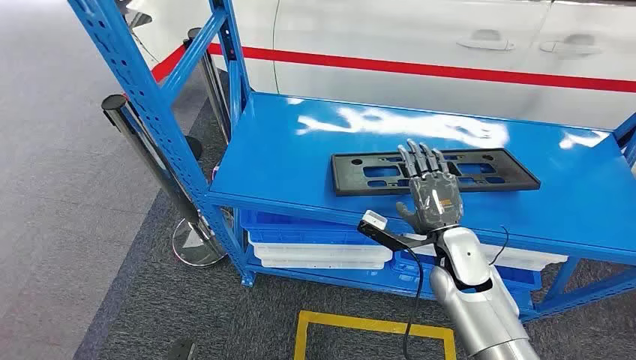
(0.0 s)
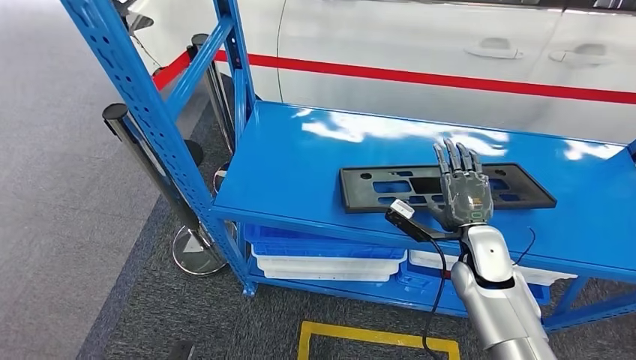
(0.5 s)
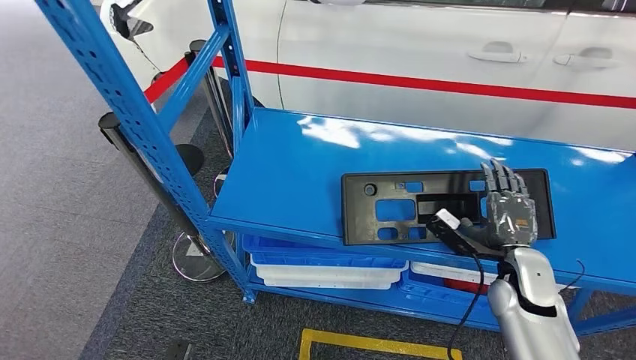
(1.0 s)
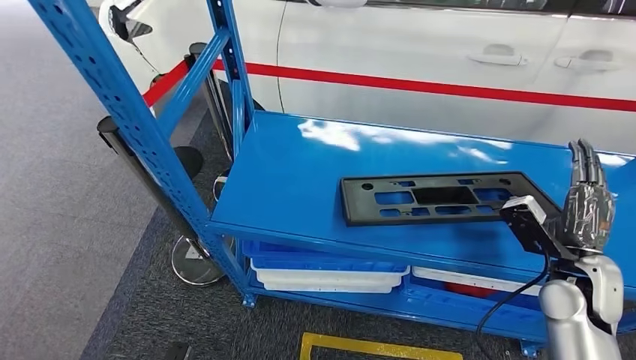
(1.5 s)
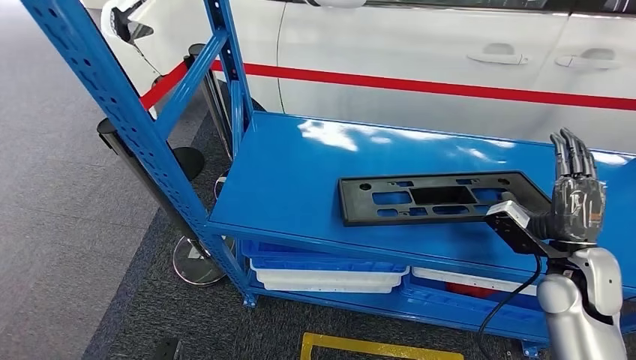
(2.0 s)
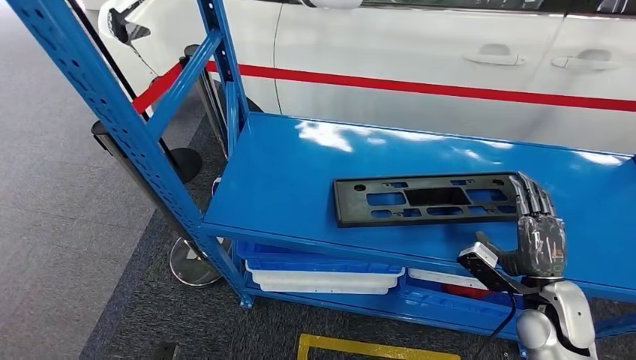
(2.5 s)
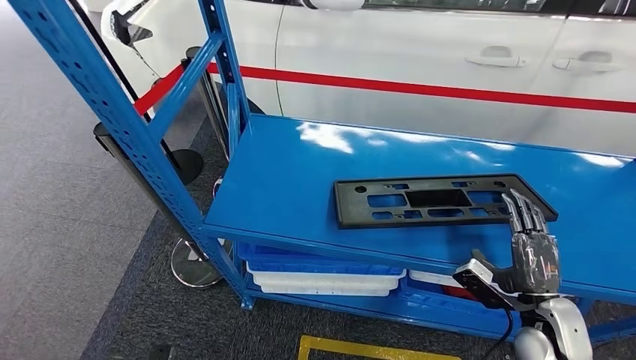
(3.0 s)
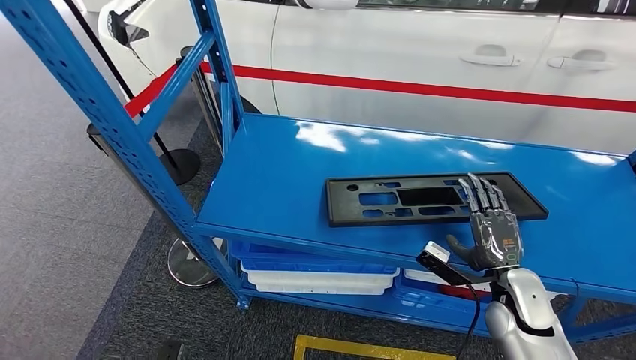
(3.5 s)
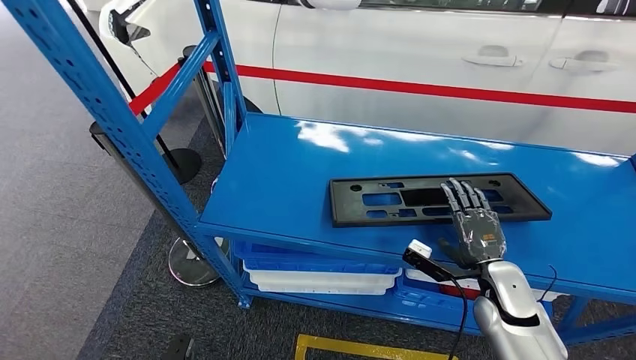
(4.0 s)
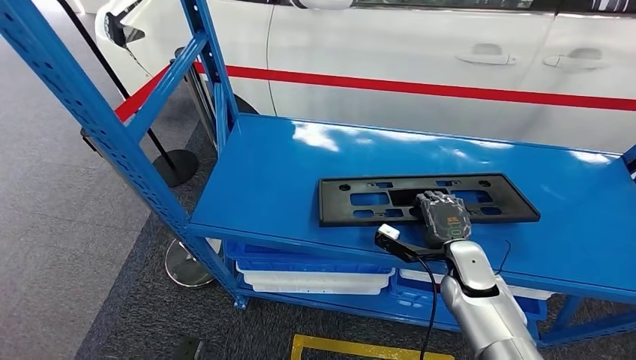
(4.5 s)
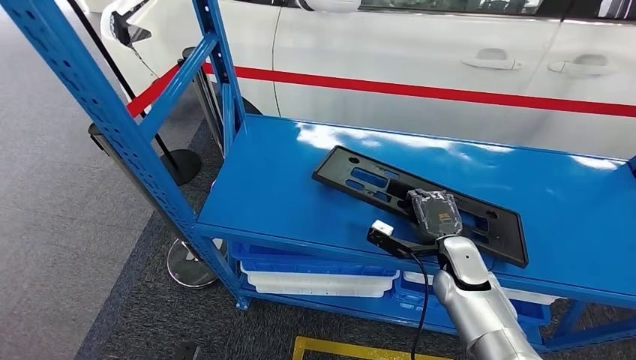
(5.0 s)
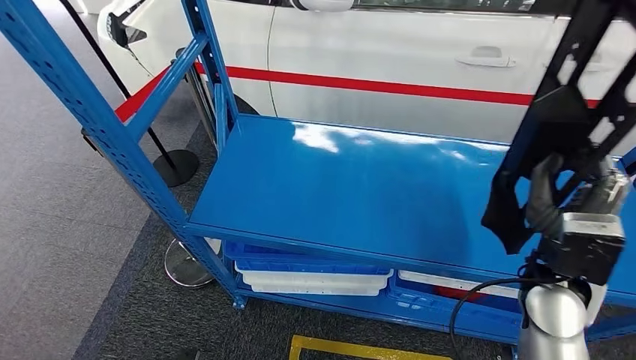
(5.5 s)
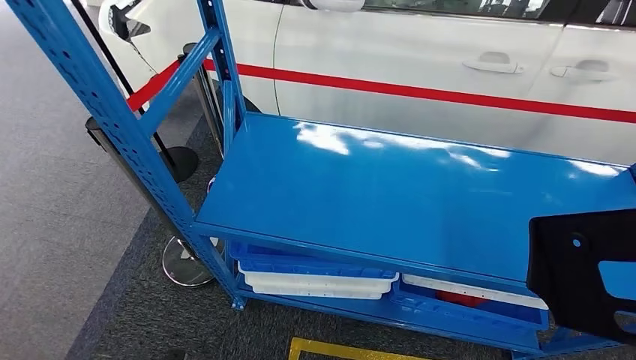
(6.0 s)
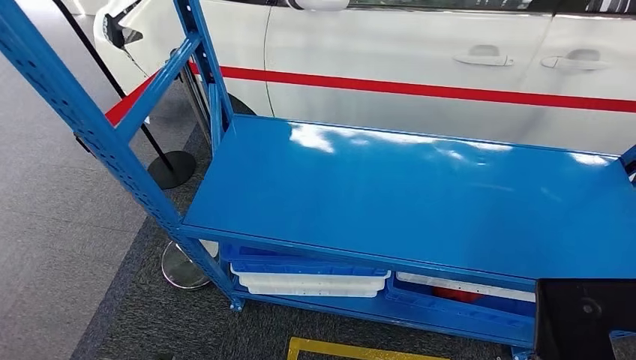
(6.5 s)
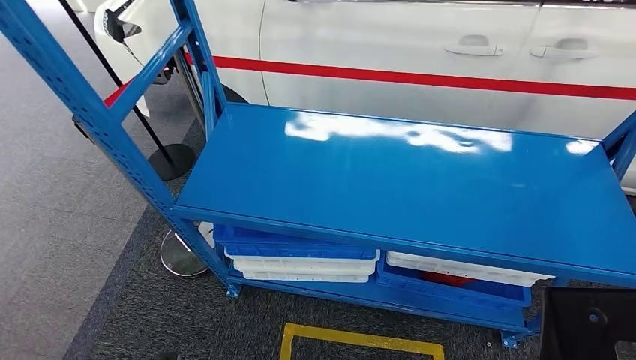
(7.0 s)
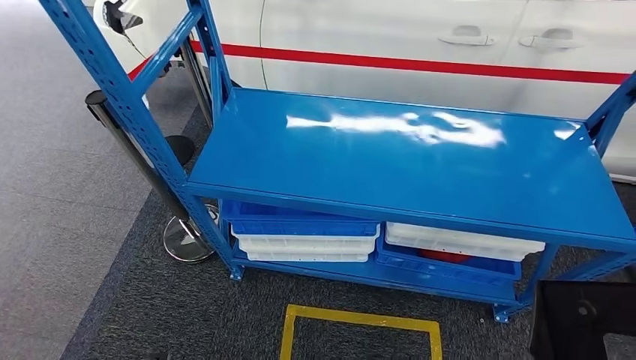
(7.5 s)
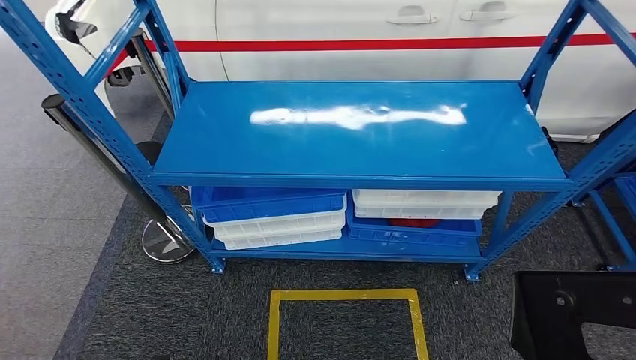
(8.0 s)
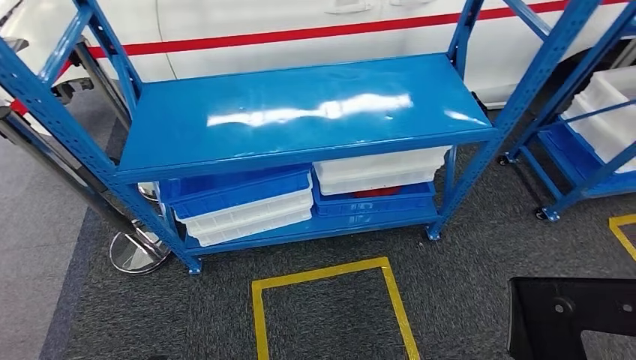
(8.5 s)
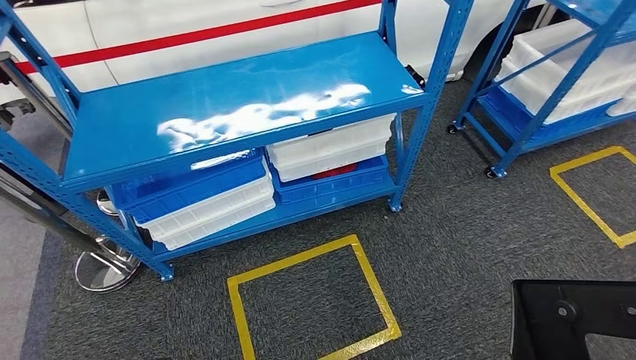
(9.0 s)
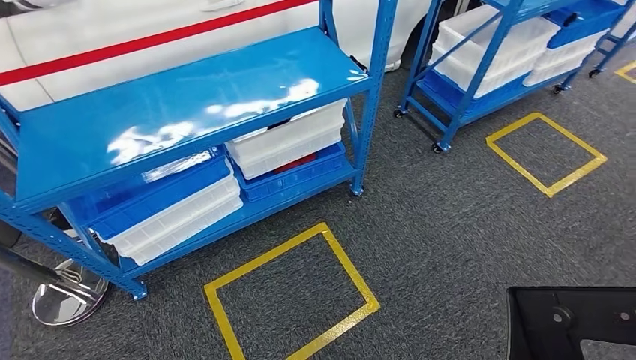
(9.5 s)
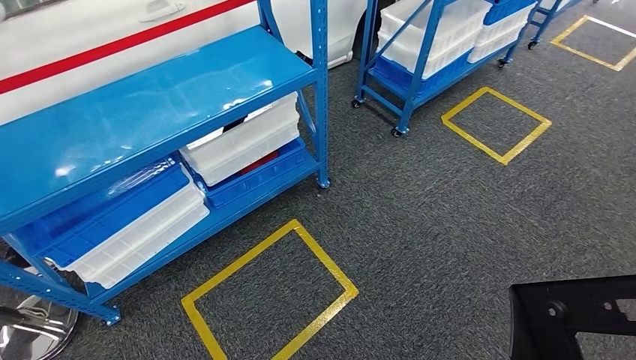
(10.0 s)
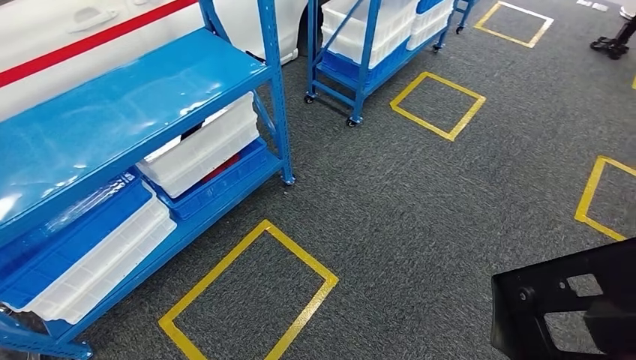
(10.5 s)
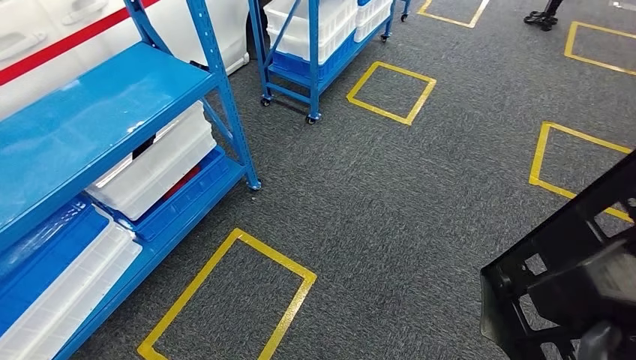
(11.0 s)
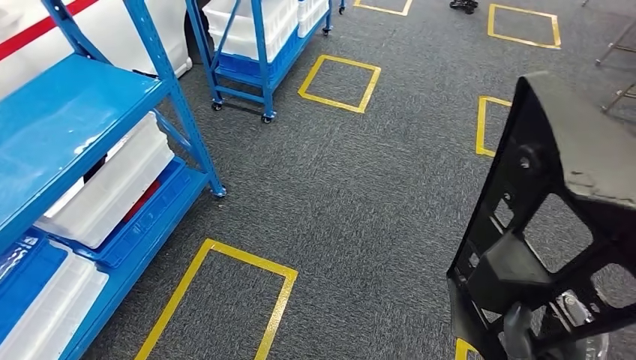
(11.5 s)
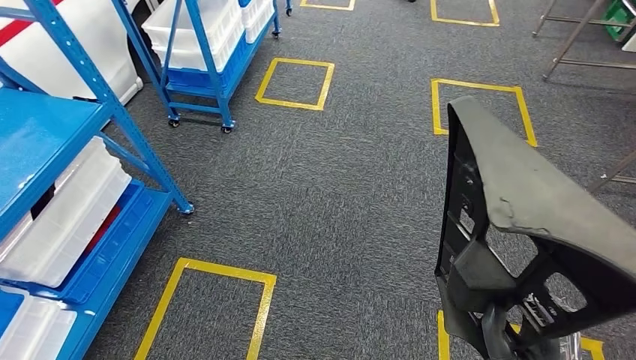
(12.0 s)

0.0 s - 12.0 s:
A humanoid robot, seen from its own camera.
Step, 0.0 s - 8.0 s: Pick up the large material from the shelf.

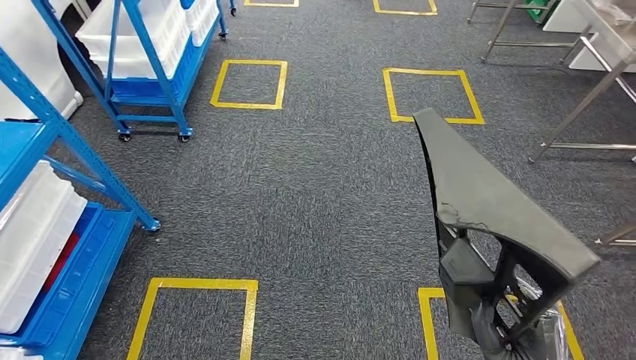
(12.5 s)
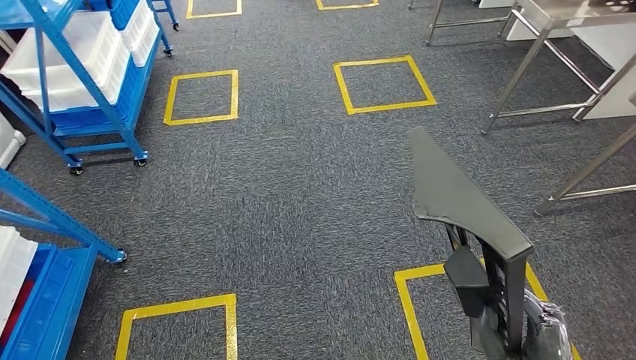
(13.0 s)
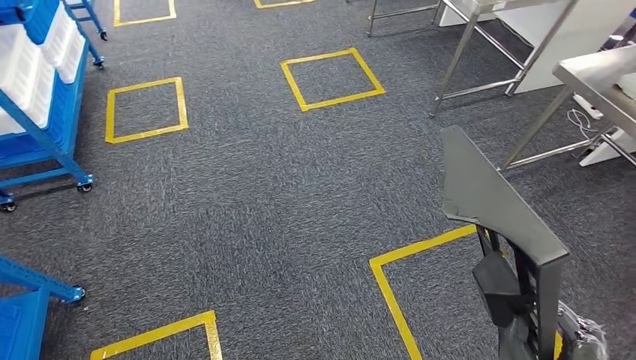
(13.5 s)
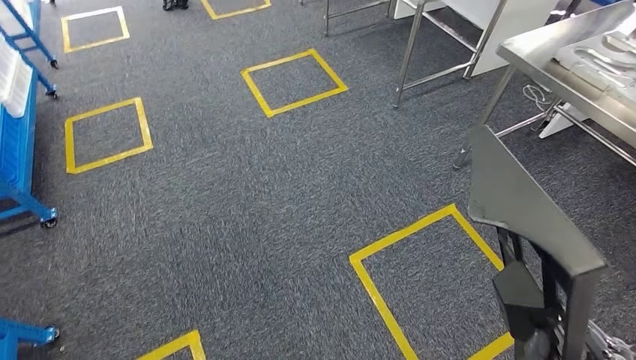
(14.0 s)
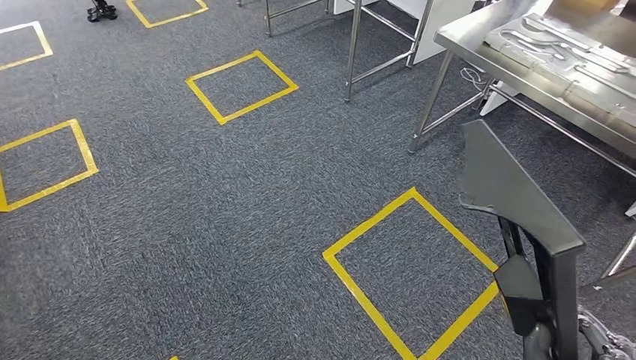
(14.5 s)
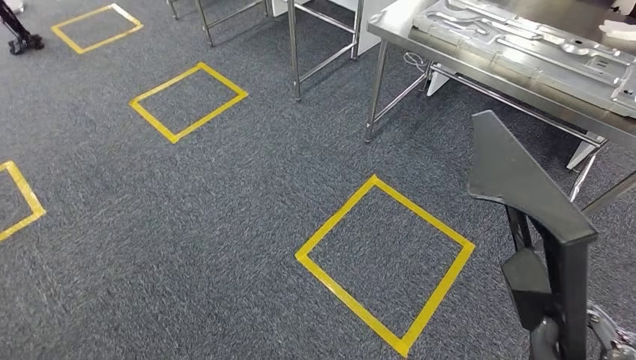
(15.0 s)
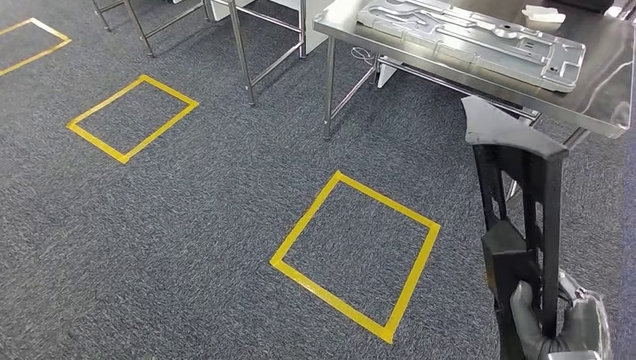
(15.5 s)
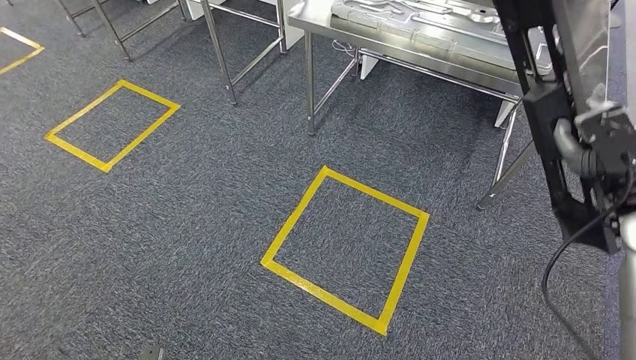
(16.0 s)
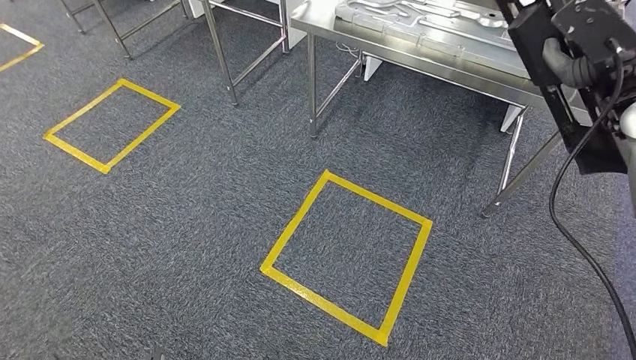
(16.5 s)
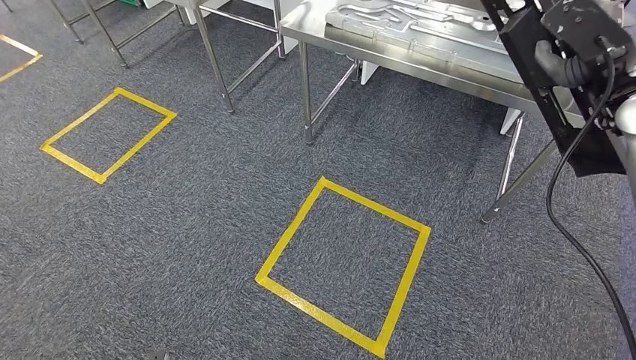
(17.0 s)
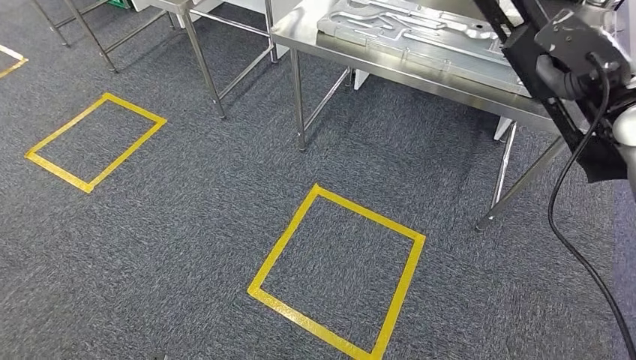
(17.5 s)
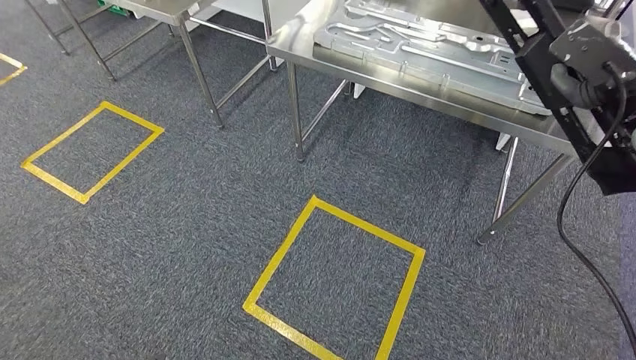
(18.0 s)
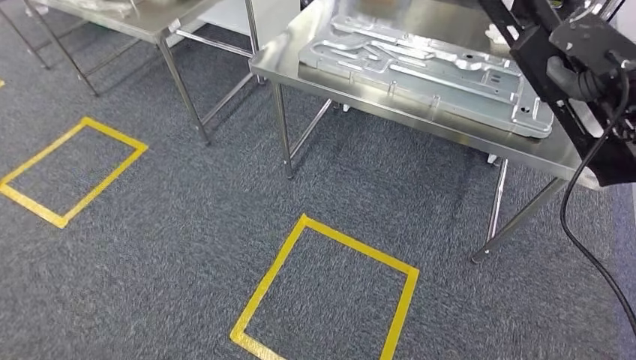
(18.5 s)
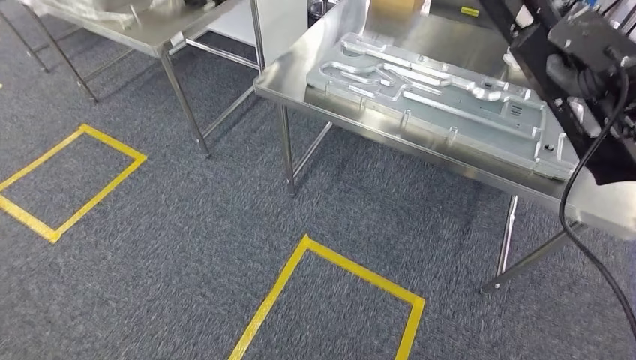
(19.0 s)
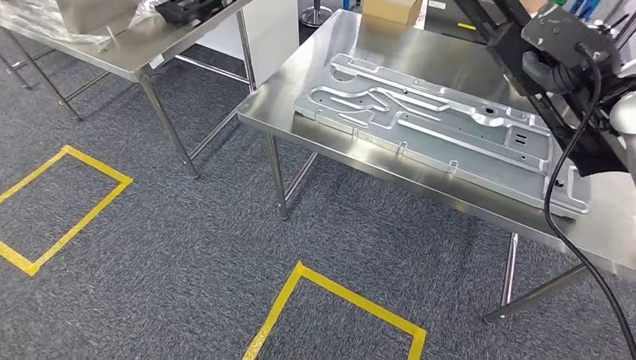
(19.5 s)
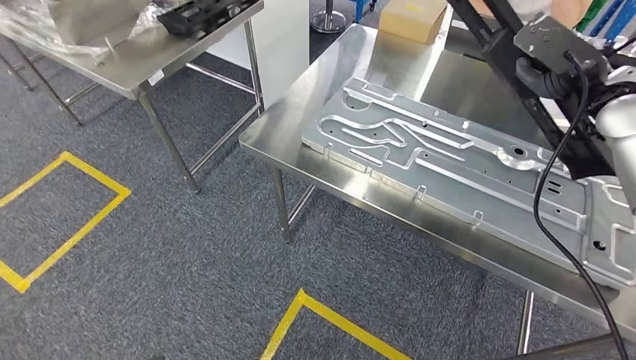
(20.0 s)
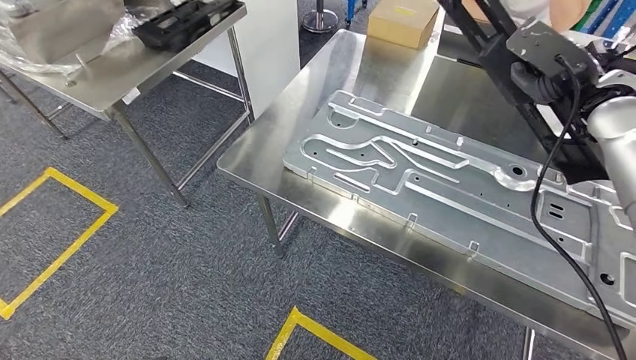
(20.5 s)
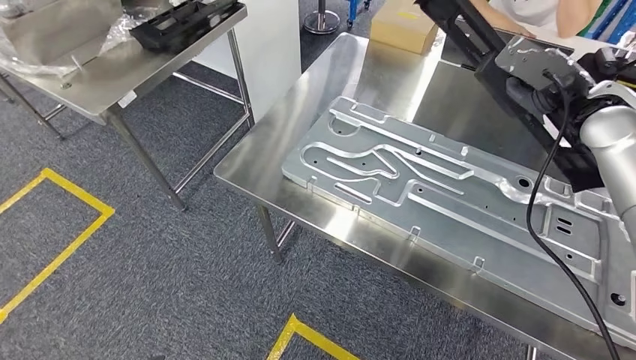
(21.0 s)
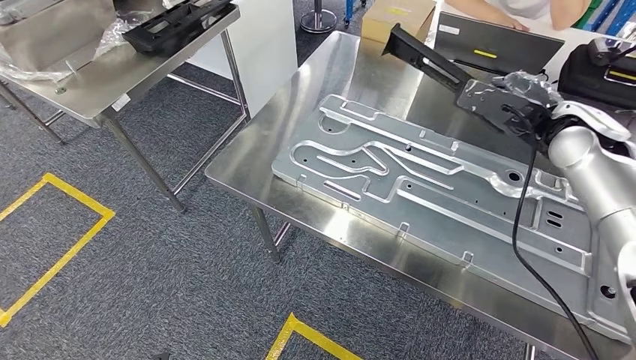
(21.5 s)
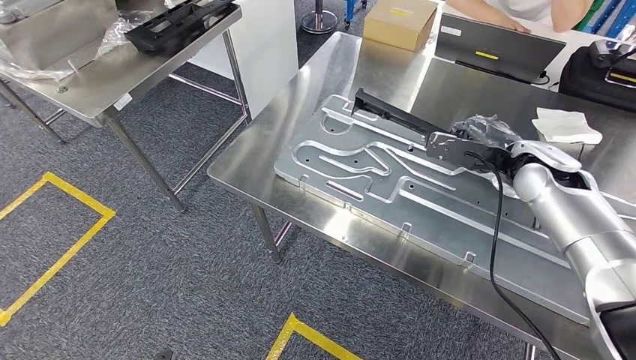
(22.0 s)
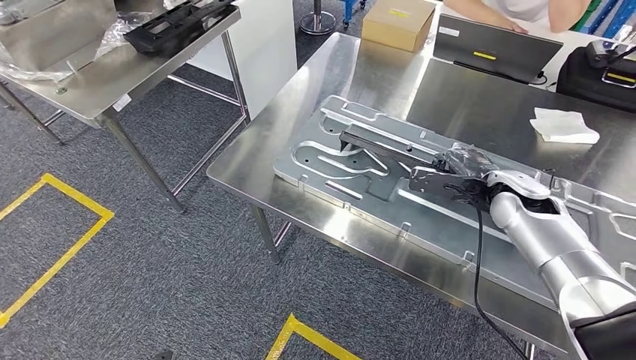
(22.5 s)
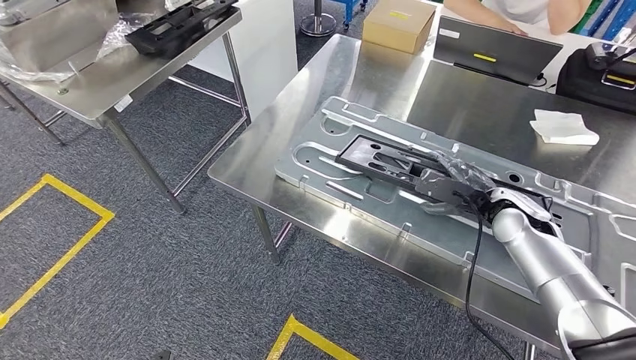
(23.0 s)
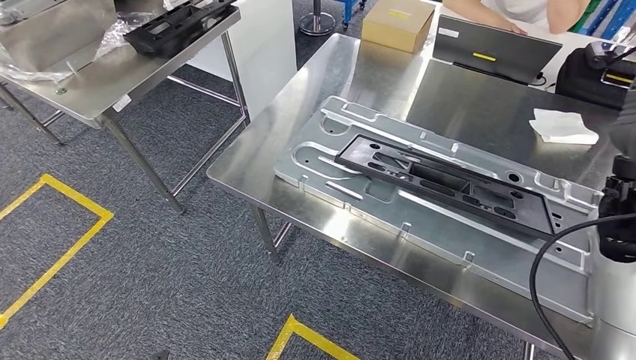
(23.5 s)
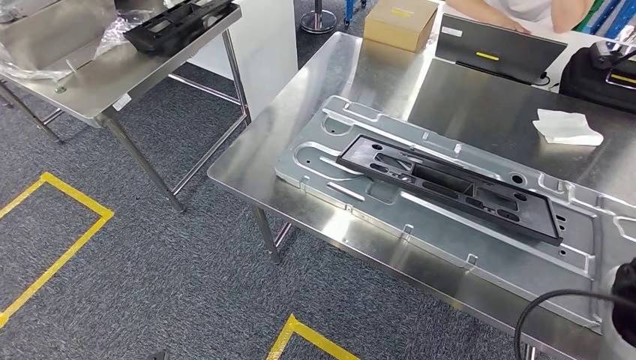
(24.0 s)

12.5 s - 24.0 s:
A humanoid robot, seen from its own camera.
Step, 12.5 s - 18.0 s: Move the large material to the workbench.
22.0 s - 24.0 s: The right hand is displaced backward by some 20 cm.
